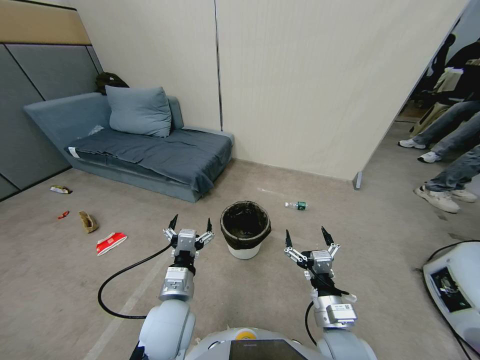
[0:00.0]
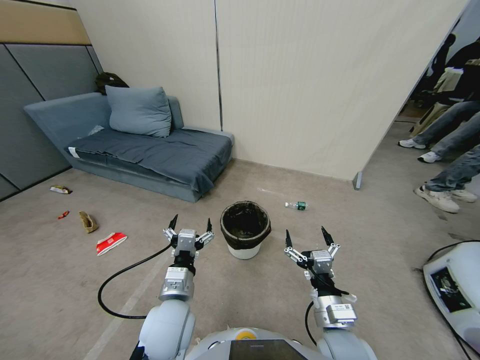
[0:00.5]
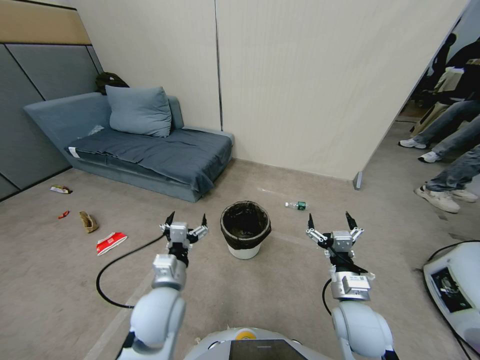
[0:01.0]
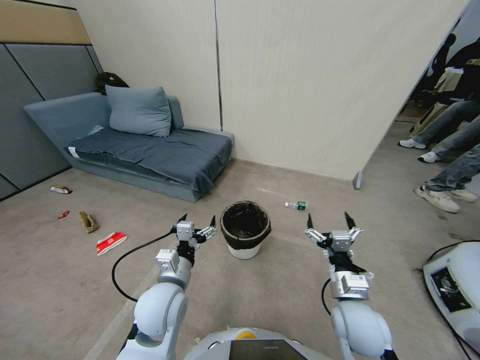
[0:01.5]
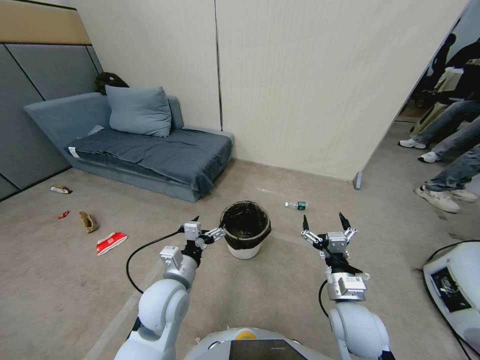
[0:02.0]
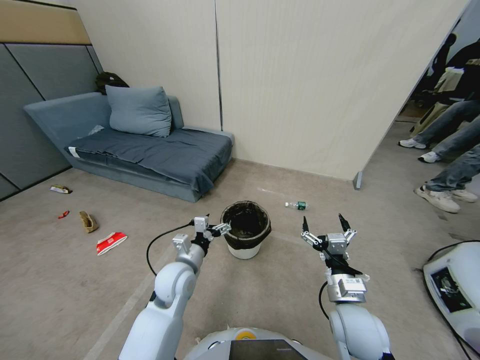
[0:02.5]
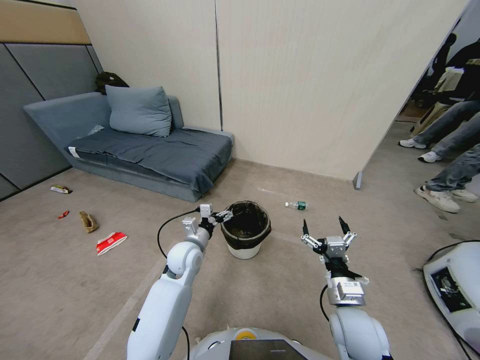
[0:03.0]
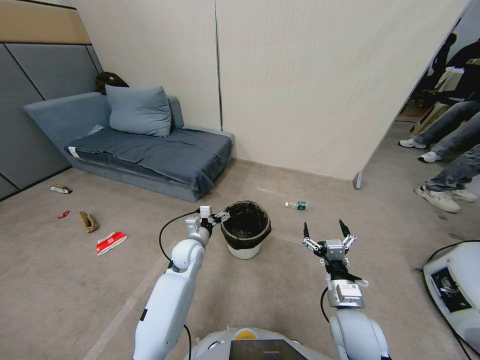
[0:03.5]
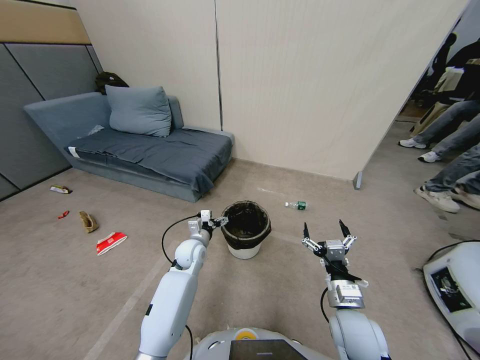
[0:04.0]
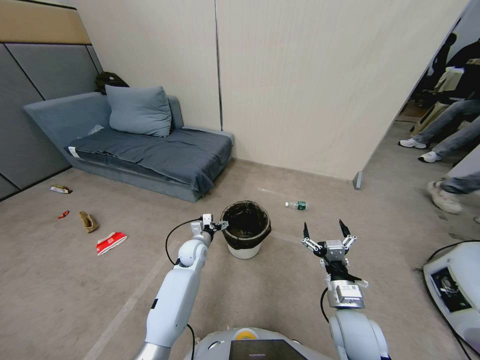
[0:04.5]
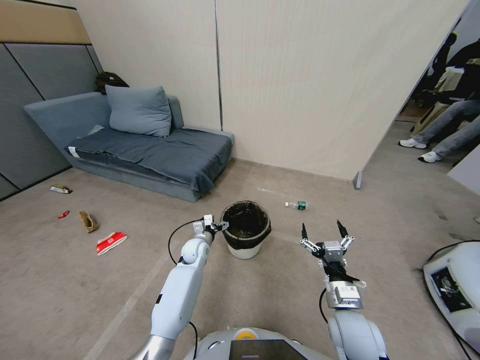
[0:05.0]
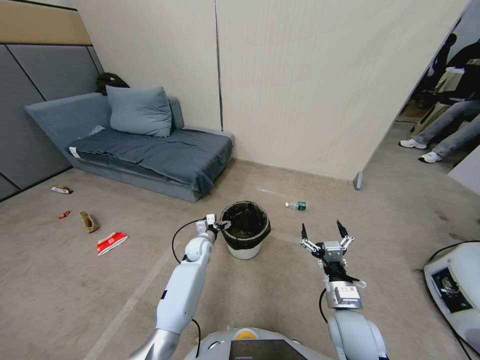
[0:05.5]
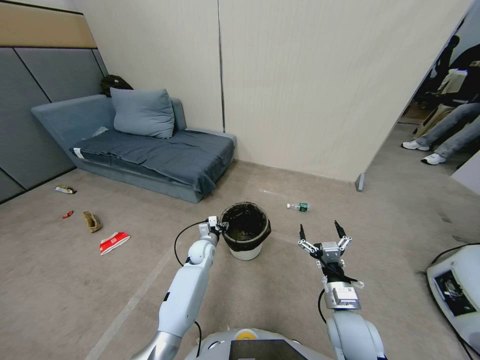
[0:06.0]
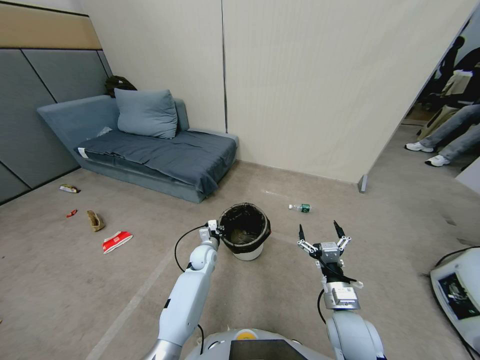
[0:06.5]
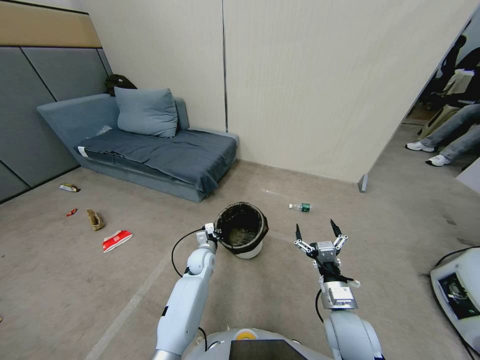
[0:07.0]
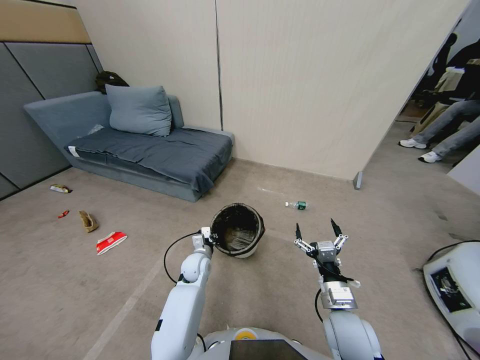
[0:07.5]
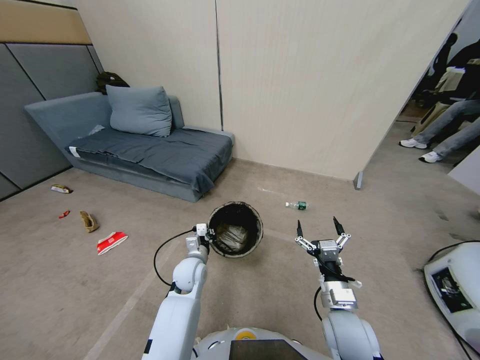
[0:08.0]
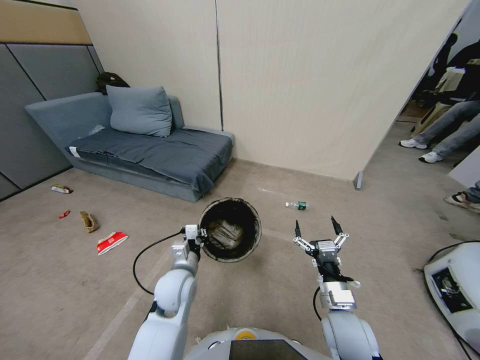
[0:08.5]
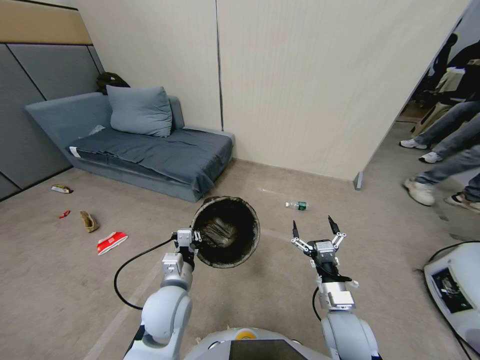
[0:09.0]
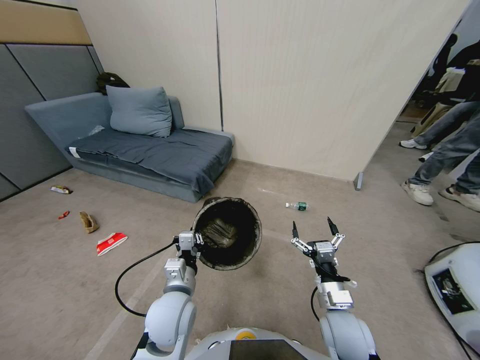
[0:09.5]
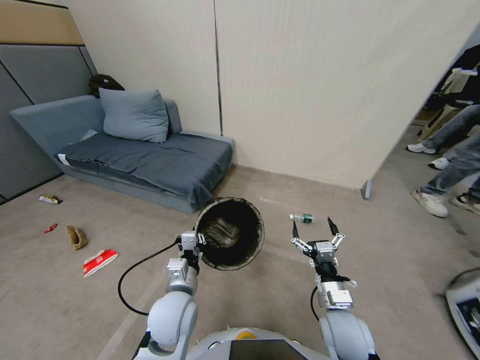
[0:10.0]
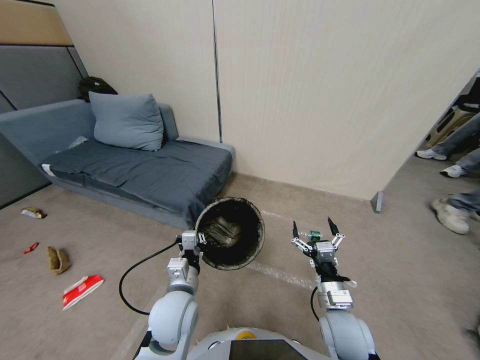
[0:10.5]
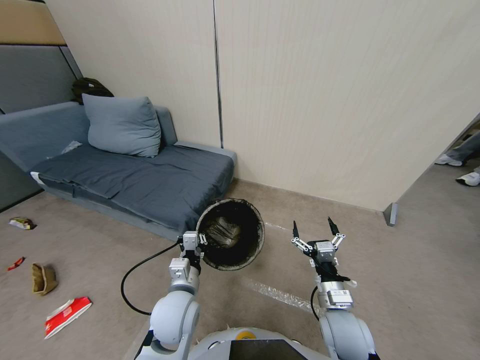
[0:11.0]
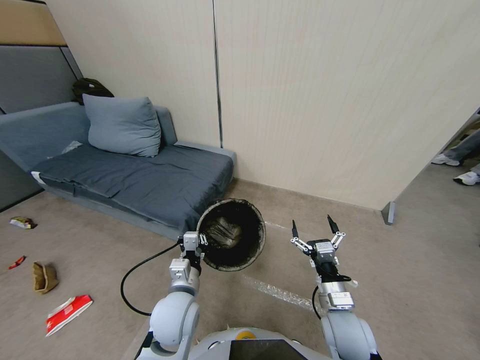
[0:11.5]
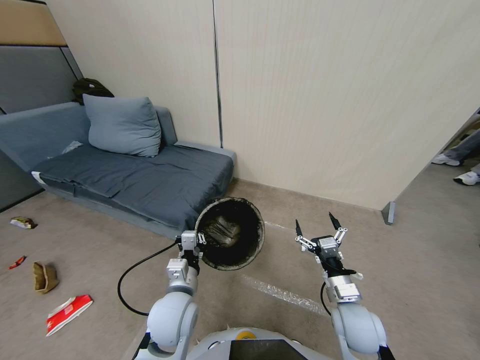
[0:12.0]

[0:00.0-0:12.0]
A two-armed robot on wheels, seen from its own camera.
Task of the whole recording: Pick up the trash bin, then pick up the garbage from the floor and place it into the trash bin.
0:00.0 to 0:02.0: The right gripper moves approximately 5 cm. The left gripper shifts some 5 cm forward.
0:02.0 to 0:04.0: The left gripper shifts approximately 20 cm forward and downward.
0:04.0 to 0:06.0: The left gripper moves downward, some 5 cm, and closes up.
0:06.0 to 0:08.0: The left gripper is displaced backward and upward by approximately 15 cm.
0:08.0 to 0:10.0: The left gripper travels backward and upward by about 15 cm.

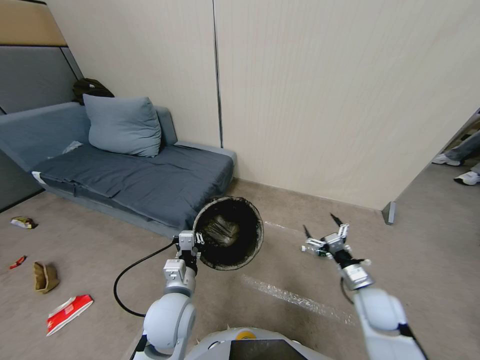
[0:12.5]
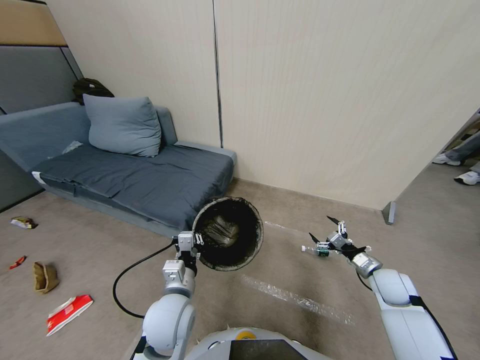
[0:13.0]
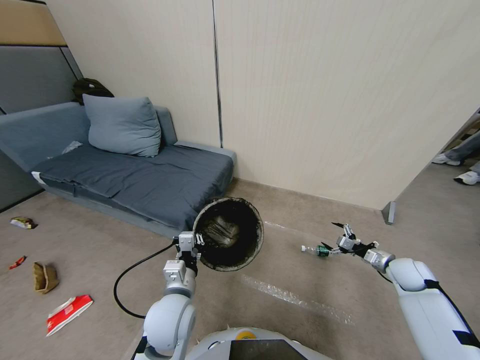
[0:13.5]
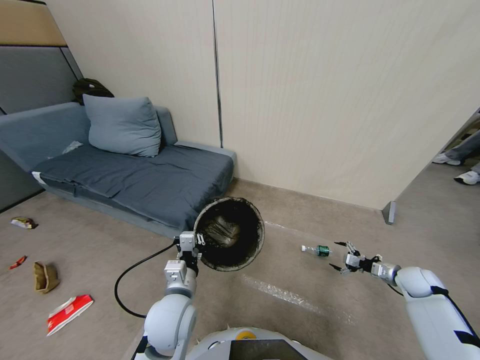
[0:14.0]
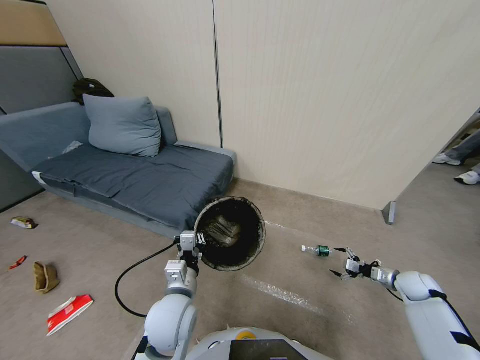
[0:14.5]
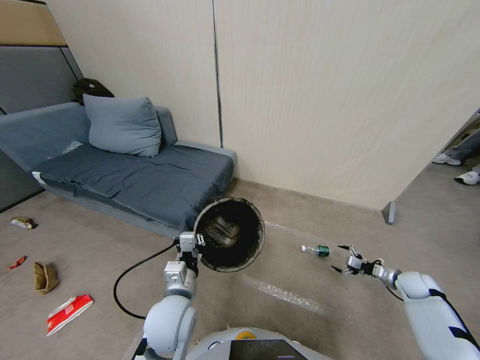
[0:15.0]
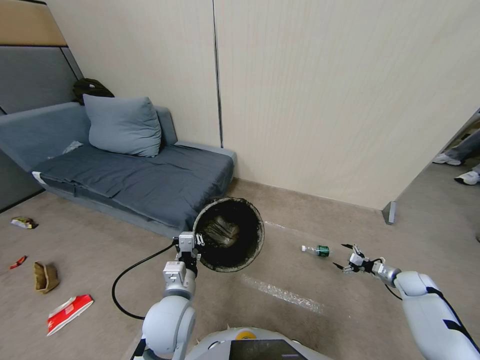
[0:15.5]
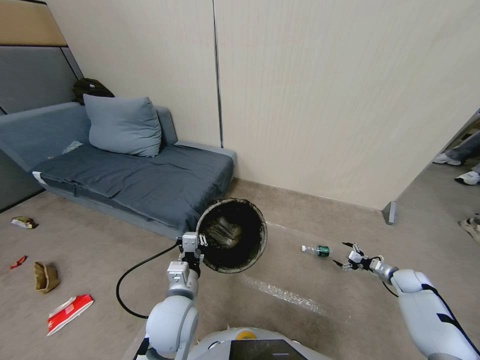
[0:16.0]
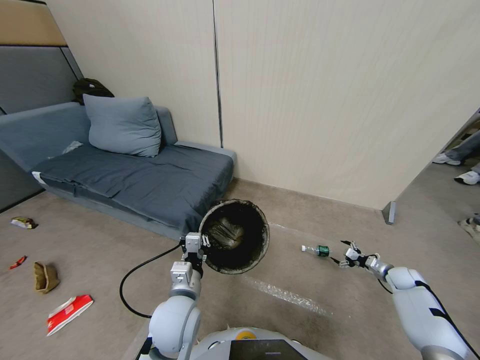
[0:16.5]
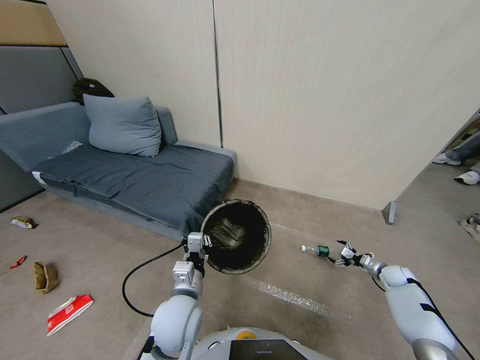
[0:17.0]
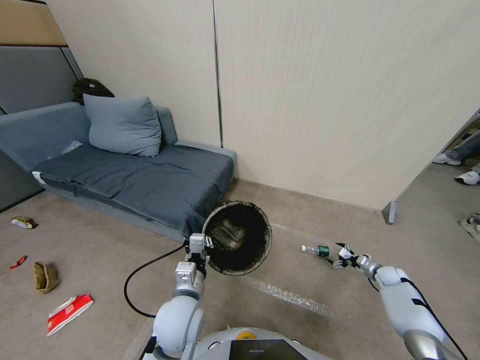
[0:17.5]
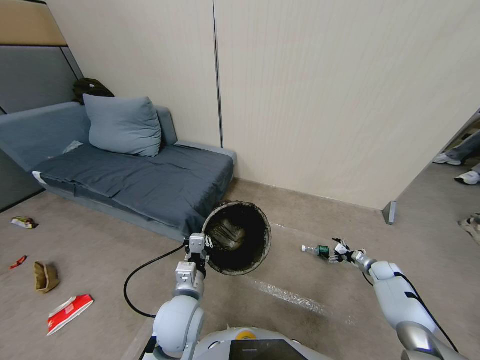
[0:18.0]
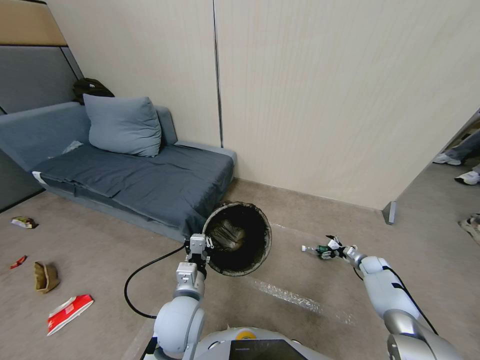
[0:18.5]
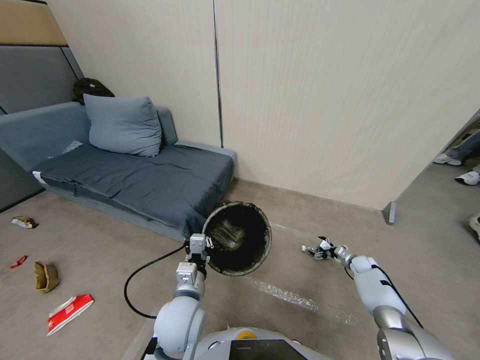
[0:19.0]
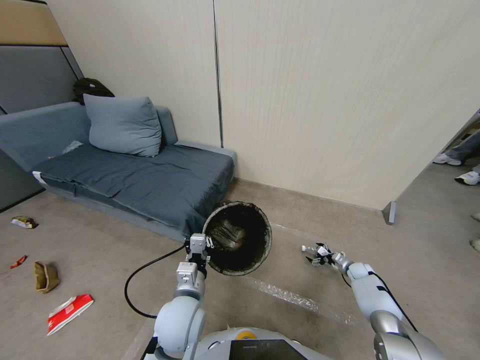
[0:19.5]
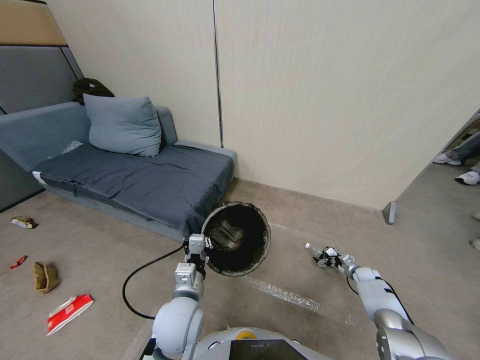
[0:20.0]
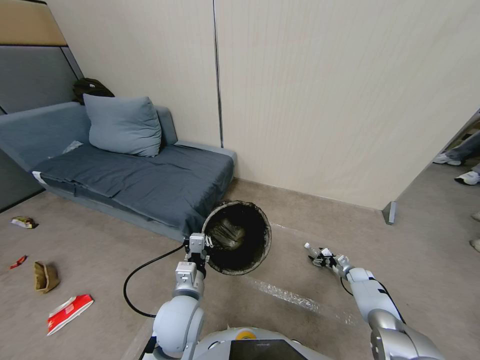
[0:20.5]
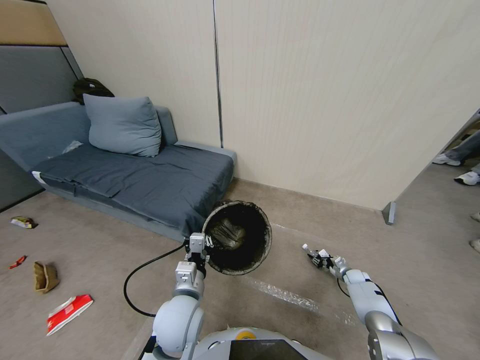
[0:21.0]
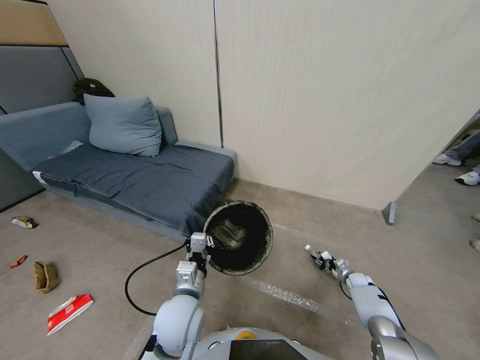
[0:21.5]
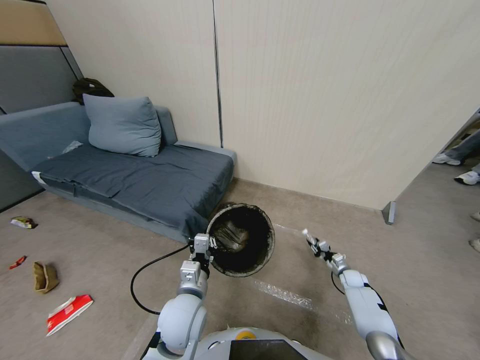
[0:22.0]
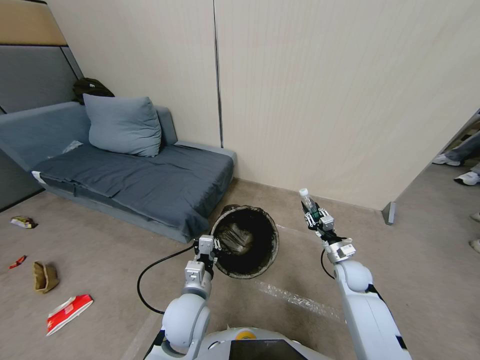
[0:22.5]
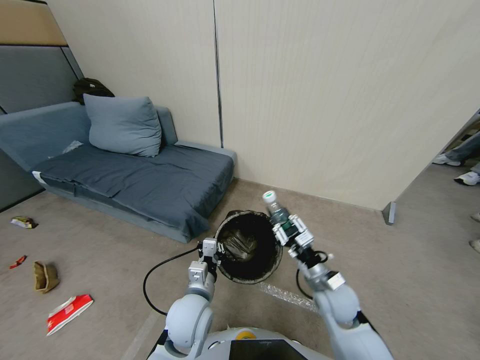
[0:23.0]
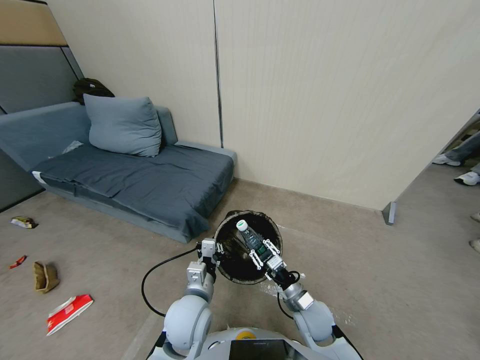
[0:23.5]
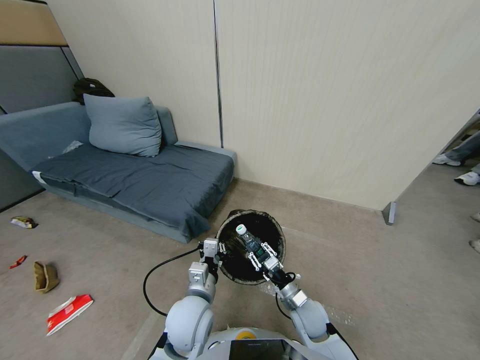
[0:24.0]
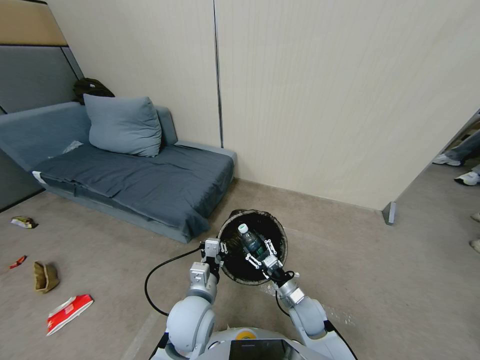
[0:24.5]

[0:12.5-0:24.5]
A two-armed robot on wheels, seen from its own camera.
Task of the whole recording: Pick up the trash bin, then pick up the garbage from the floor and place it into the trash bin.
0:12.5 to 0:14.5: The right gripper moves to the right, approximately 20 cm.
0:14.5 to 0:16.5: The right gripper moves downward, approximately 5 cm.
0:16.5 to 0:18.5: The right gripper is displaced forward by some 5 cm.
0:18.5 to 0:20.5: The right gripper is displaced downward by approximately 5 cm.
0:20.5 to 0:22.5: The right gripper travels upward and to the left by some 30 cm, and closes.
0:22.5 to 0:24.5: The right gripper shifts about 15 cm to the left, backward and downward, and opens up.

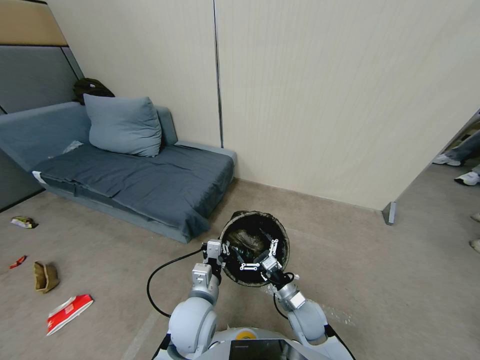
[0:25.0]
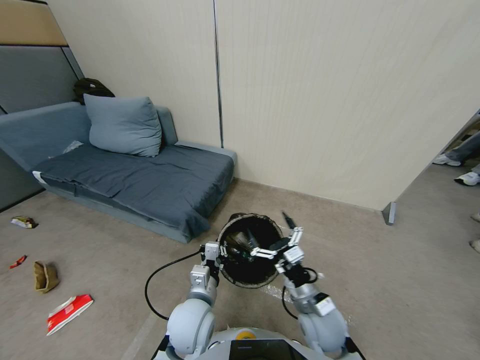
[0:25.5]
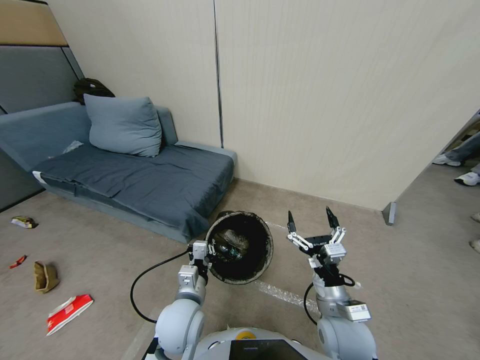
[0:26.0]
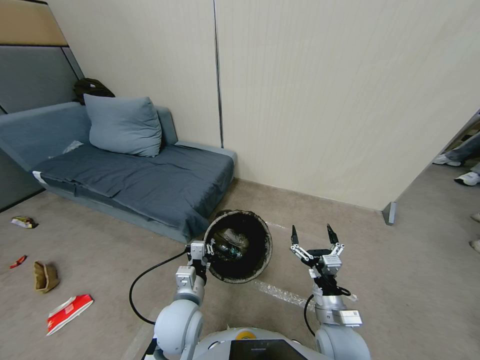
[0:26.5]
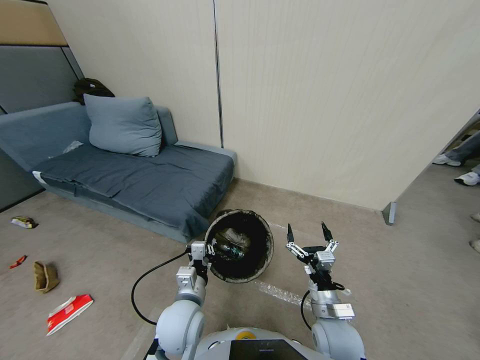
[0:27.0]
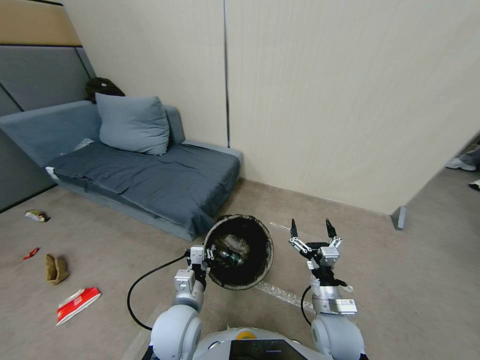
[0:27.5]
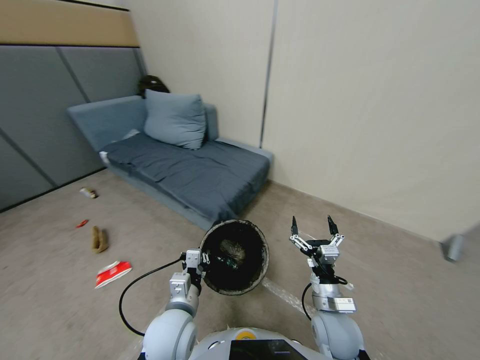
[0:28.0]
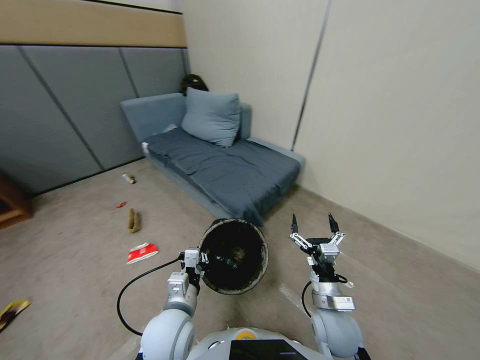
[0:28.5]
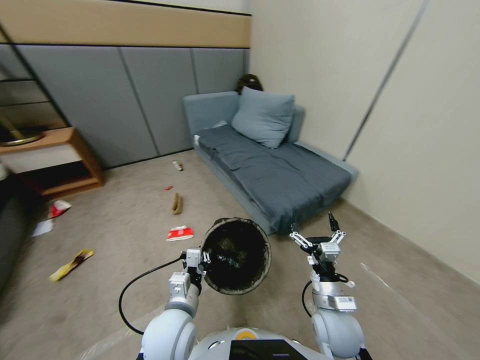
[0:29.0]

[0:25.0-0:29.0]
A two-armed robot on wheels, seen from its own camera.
Task of the whole recording: Pick up the trash bin, then pick up the garbage from the floor and place it into the trash bin.
0:25.0 to 0:27.0: The right gripper heads upward, covering some 5 cm.
